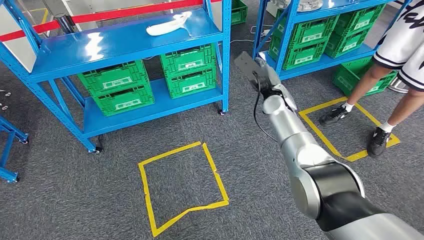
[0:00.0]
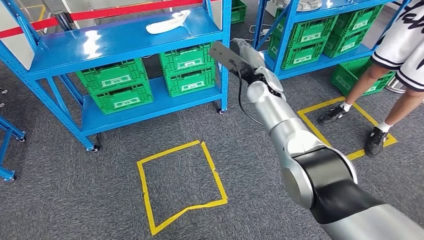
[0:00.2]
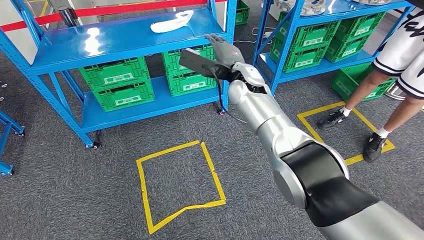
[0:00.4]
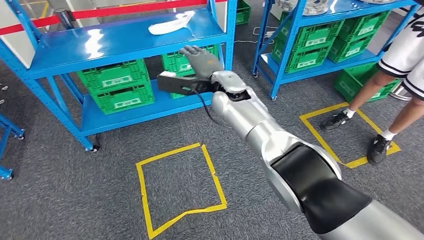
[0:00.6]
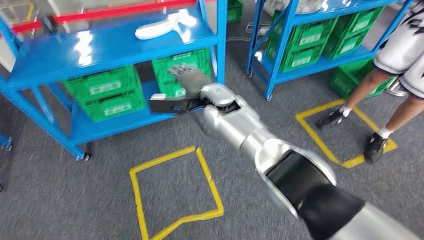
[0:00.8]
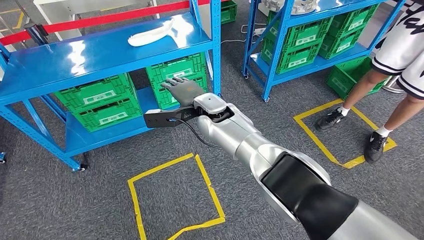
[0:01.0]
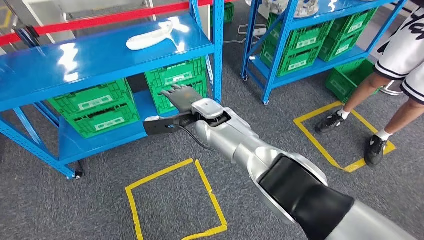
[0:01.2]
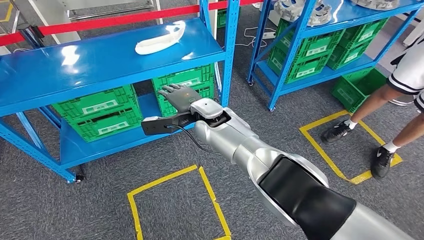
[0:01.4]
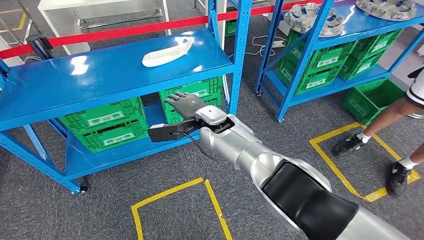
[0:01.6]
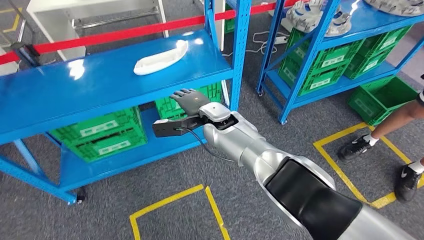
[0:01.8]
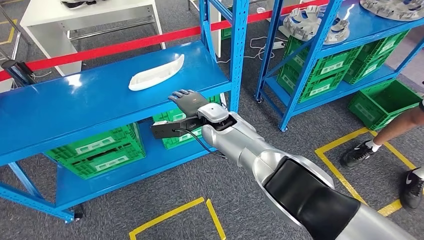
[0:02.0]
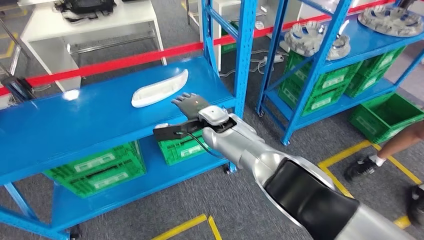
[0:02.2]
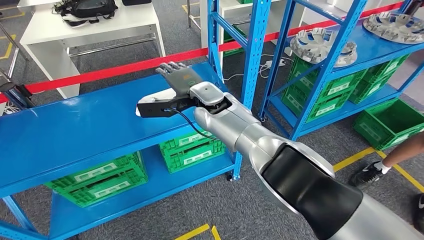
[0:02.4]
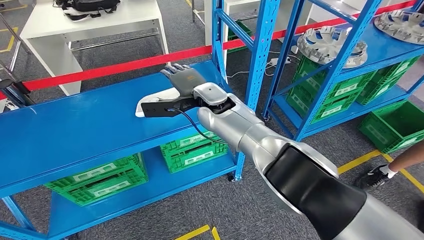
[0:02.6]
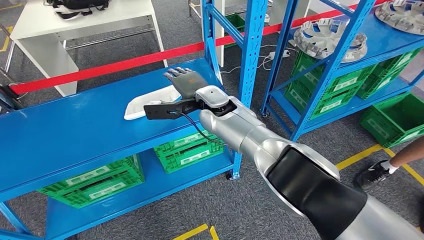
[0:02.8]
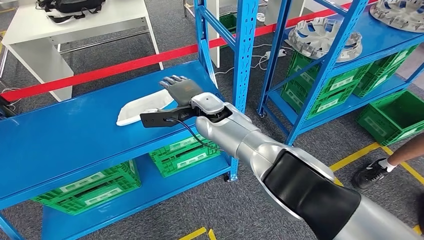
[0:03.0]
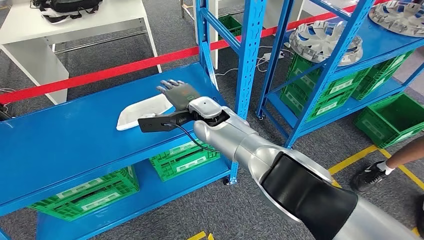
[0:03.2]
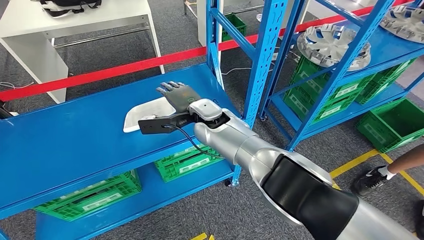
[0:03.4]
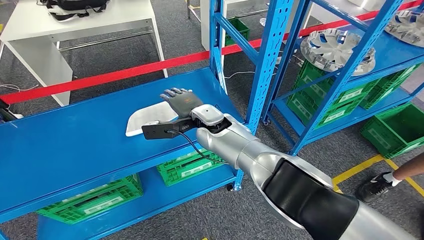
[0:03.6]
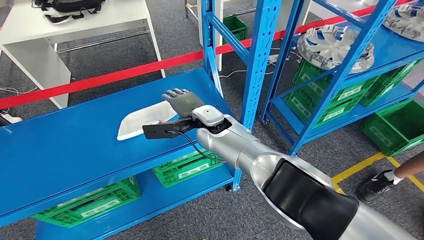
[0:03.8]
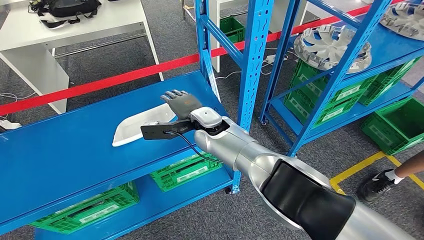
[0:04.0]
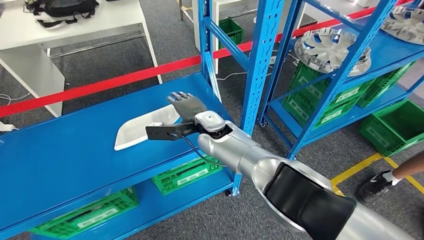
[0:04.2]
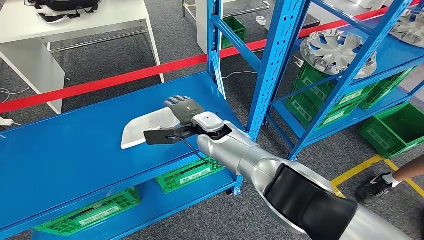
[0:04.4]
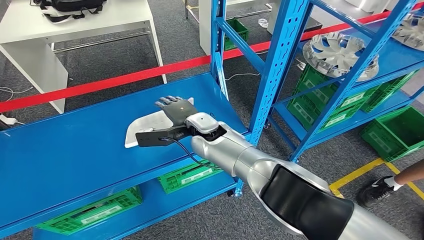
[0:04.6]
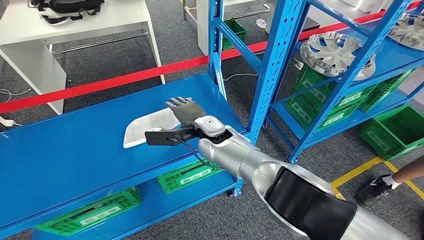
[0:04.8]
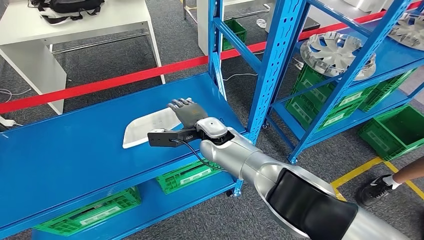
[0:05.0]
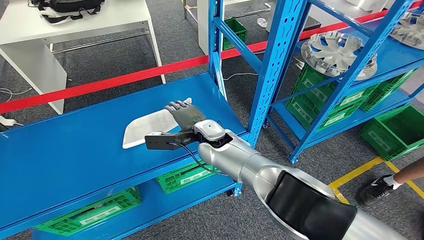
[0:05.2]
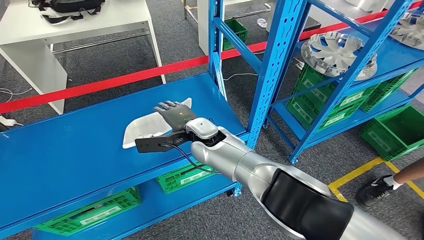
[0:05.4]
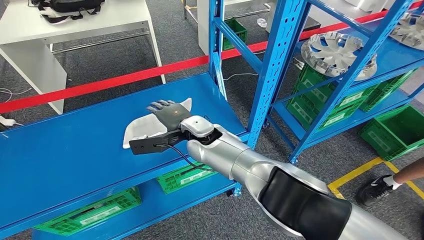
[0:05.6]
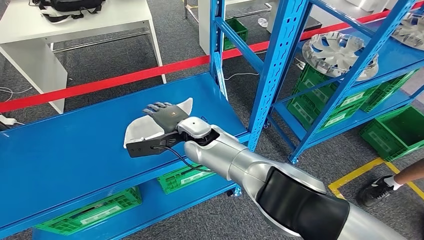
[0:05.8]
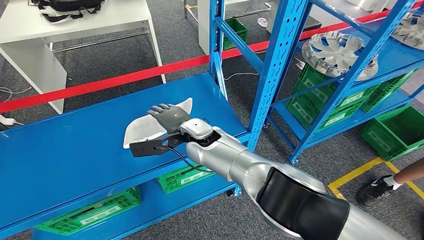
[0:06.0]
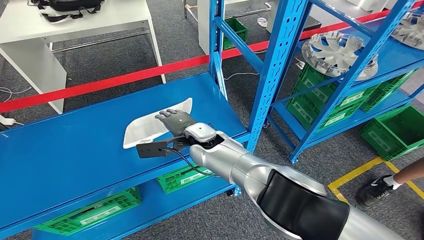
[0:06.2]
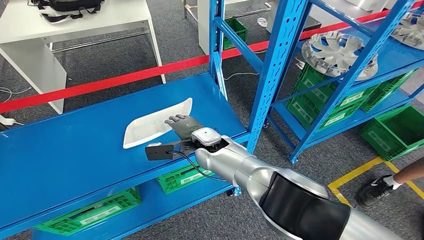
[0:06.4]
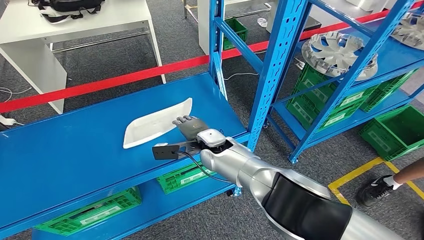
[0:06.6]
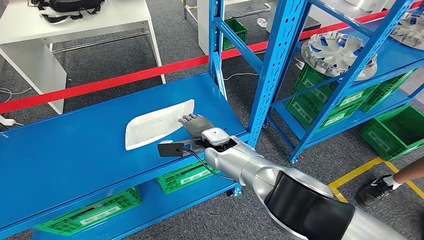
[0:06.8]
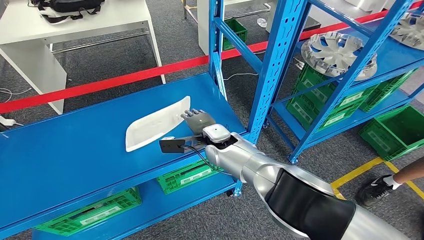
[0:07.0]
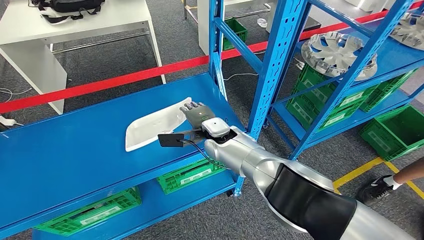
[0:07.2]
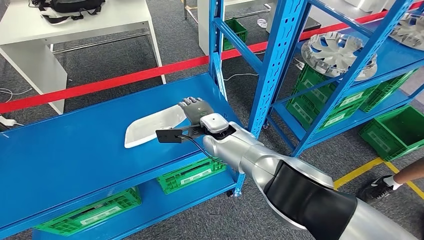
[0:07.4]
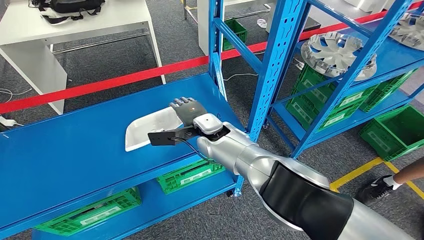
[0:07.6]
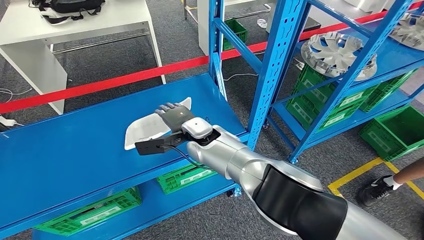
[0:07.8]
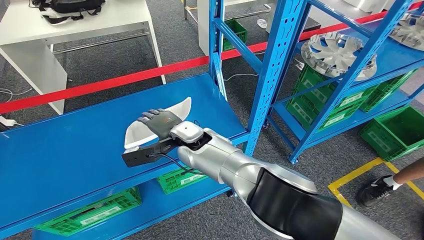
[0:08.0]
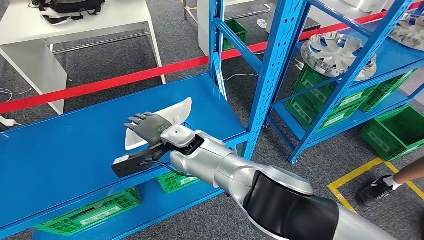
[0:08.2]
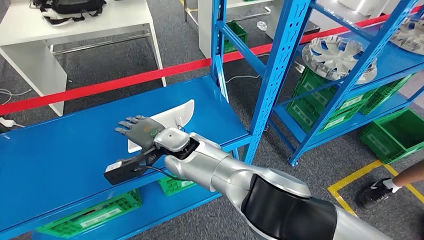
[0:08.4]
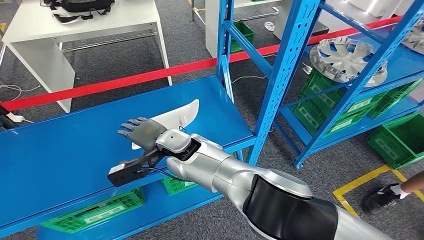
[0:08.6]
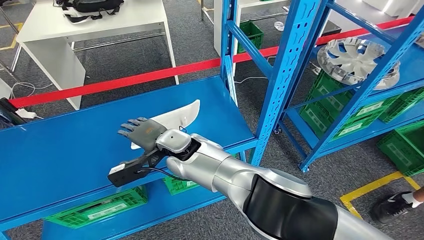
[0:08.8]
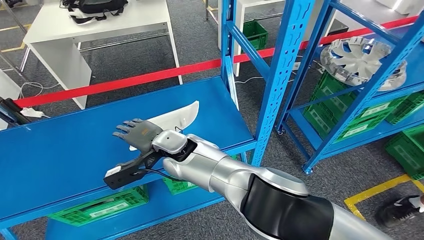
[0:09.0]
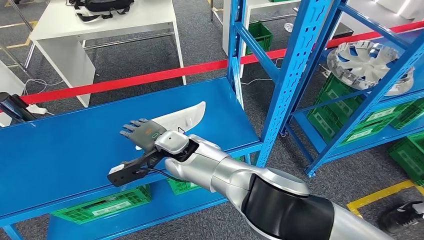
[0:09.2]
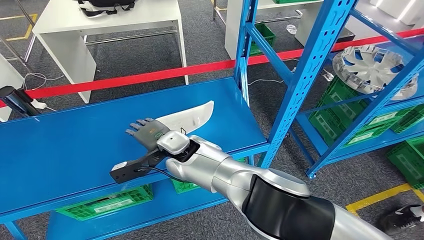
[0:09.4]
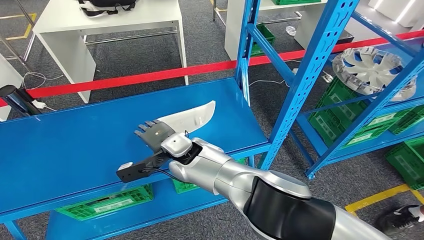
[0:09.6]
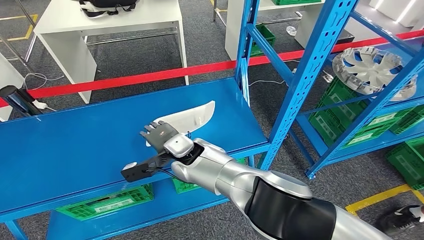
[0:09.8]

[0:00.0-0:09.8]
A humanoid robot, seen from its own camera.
0:05.6 to 0:07.0: The right hand is displaced to the right and downward by about 10 cm.

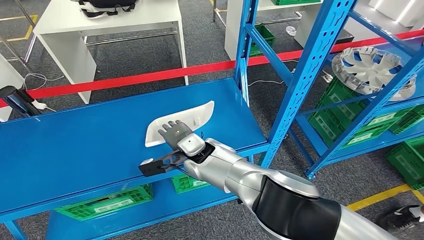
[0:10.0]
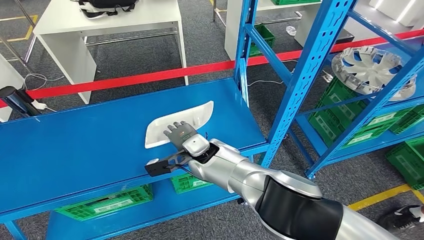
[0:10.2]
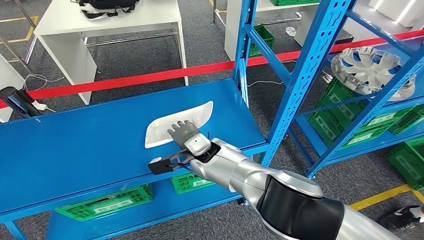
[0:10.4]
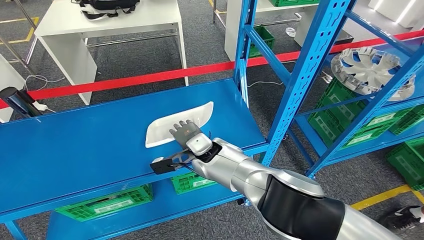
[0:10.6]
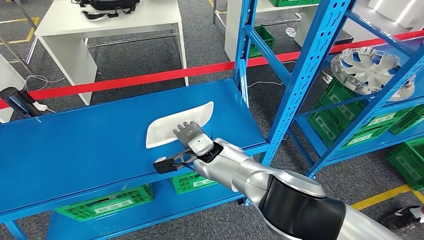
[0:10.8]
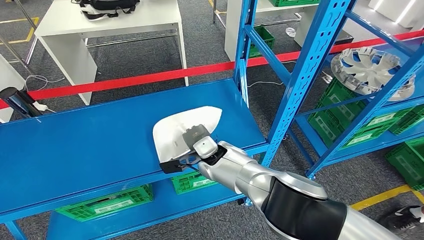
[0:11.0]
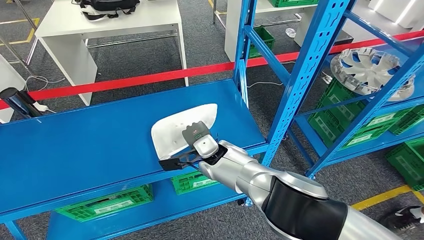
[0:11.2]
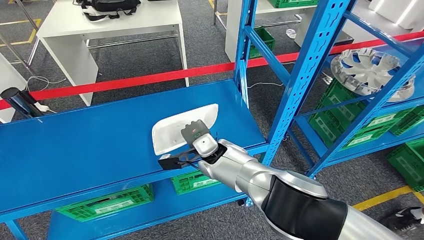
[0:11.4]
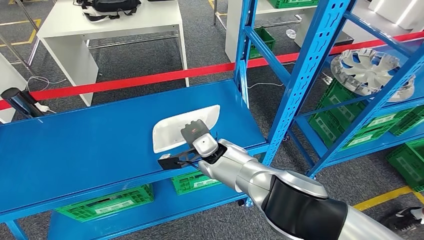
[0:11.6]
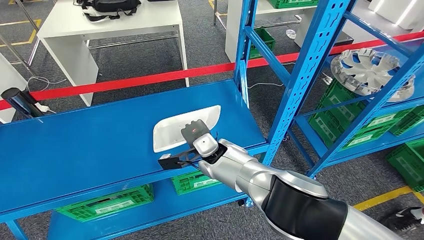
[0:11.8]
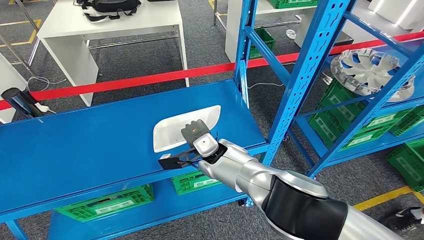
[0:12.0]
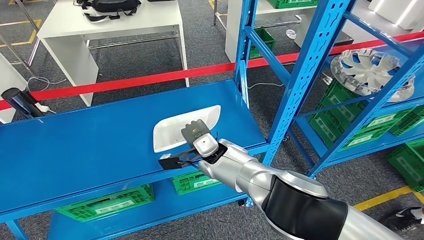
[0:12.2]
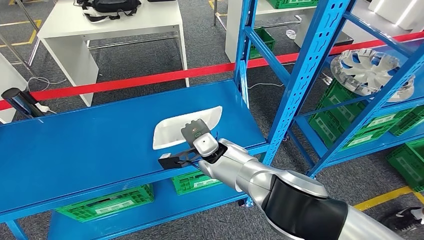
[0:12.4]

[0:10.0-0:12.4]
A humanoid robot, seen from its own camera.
Step, 0:10.0 to 0:12.4: Pick up the small component from the shelf.
0:10.0 to 0:11.2: The right hand shifts by about 5 cm.
0:11.2 to 0:12.4: Neither hand changes place.
